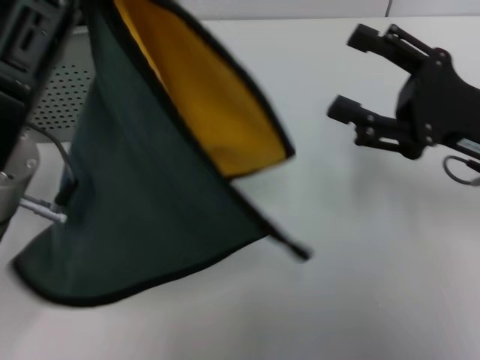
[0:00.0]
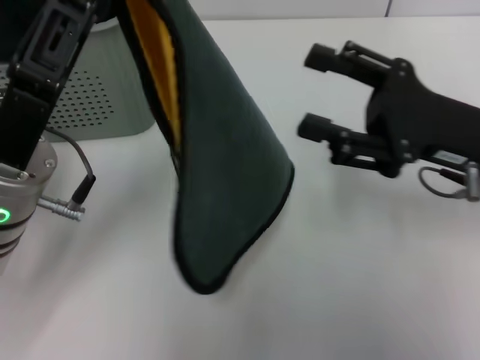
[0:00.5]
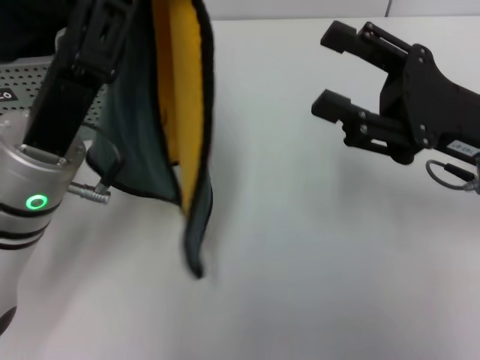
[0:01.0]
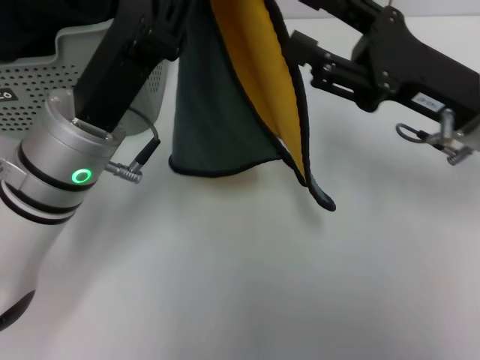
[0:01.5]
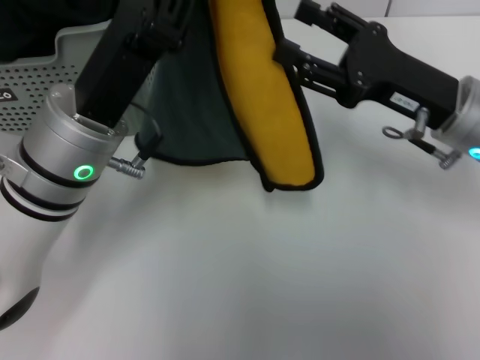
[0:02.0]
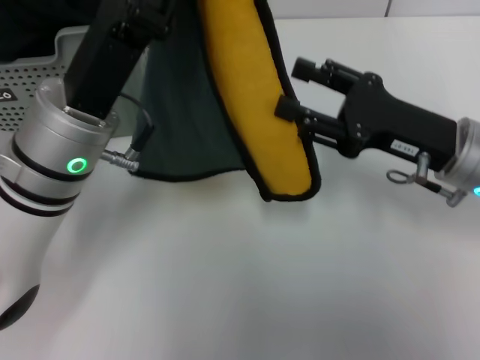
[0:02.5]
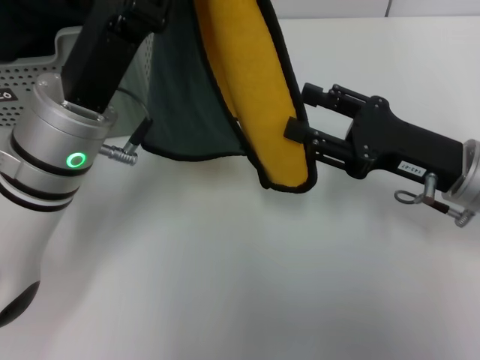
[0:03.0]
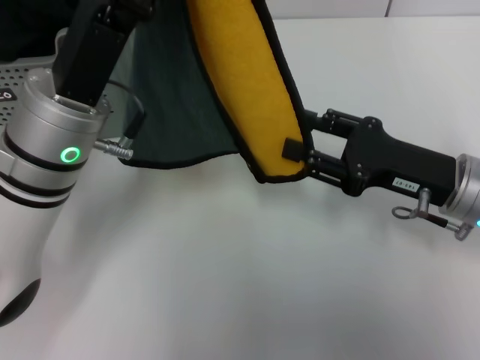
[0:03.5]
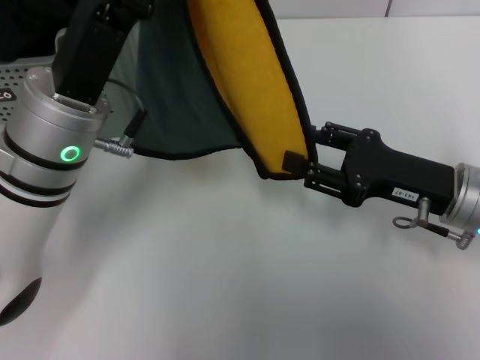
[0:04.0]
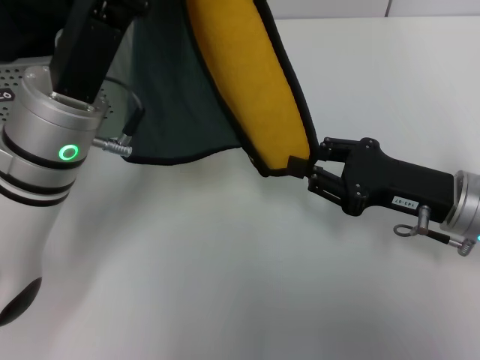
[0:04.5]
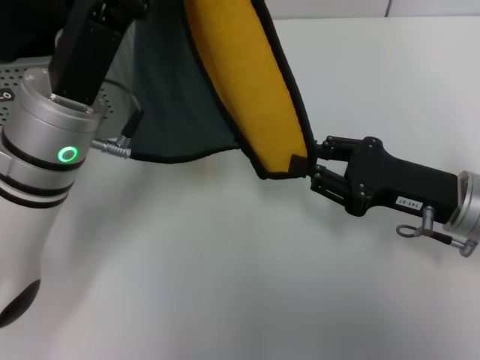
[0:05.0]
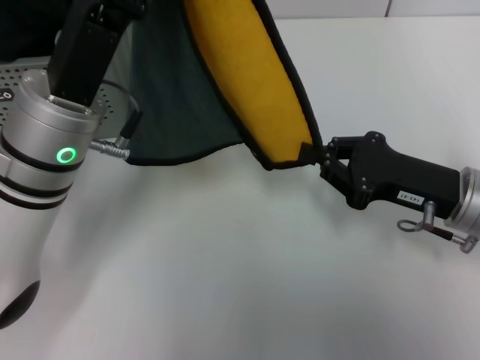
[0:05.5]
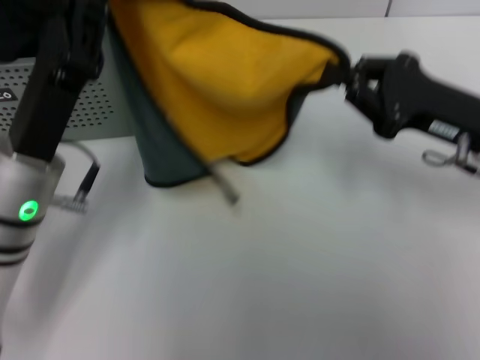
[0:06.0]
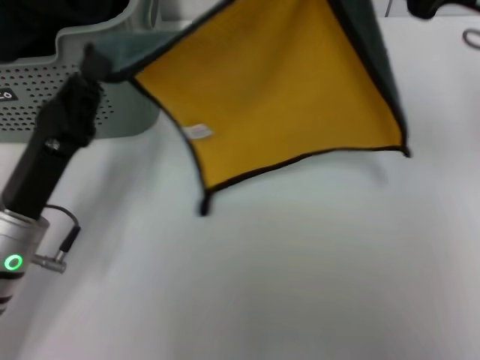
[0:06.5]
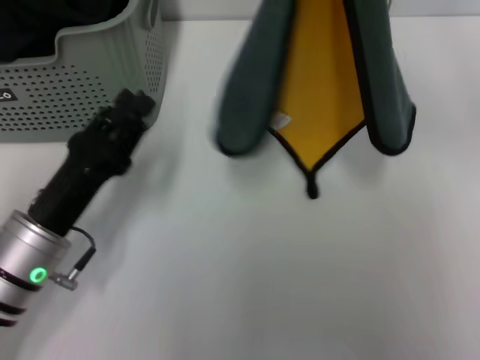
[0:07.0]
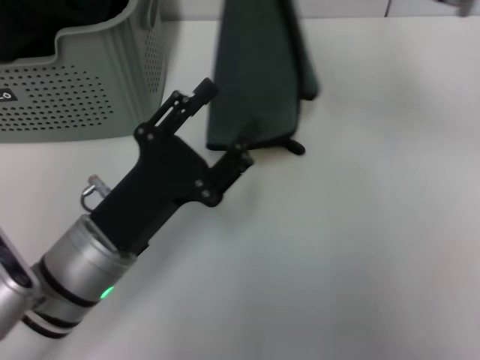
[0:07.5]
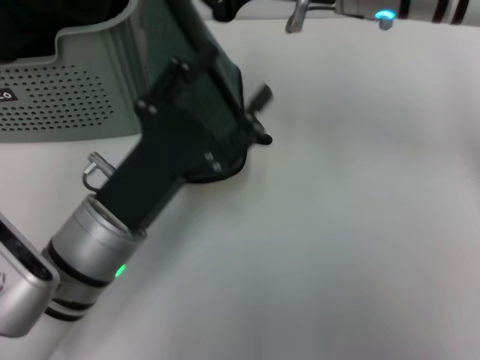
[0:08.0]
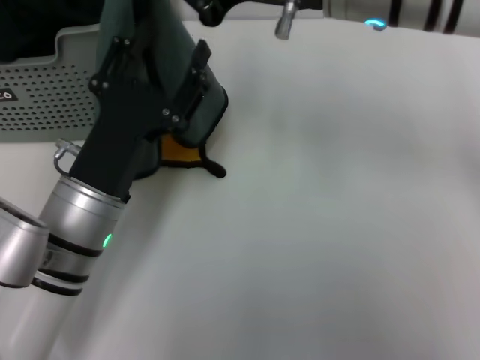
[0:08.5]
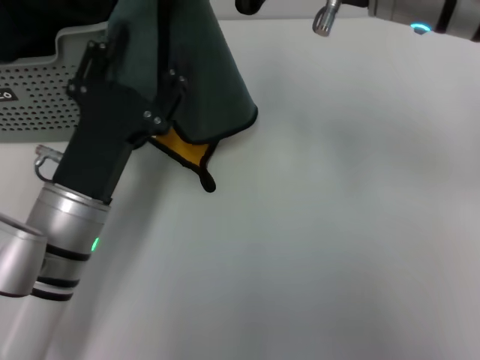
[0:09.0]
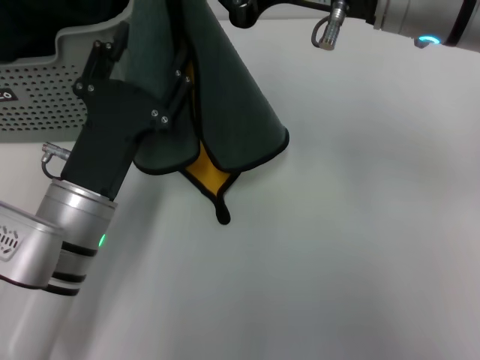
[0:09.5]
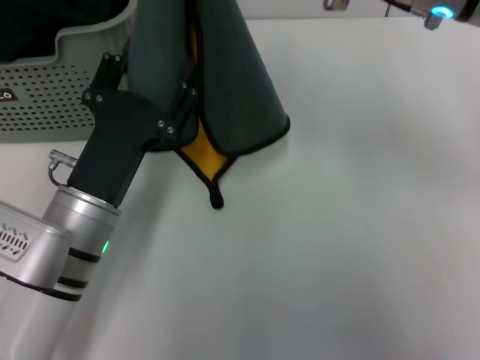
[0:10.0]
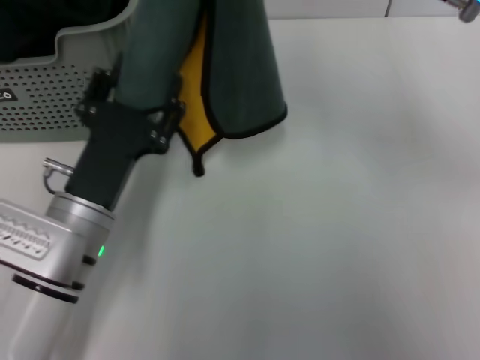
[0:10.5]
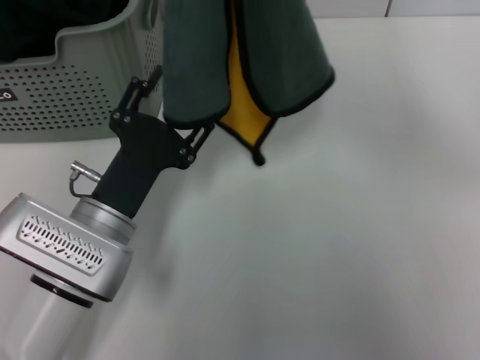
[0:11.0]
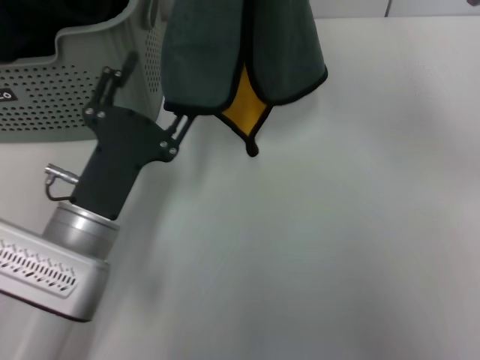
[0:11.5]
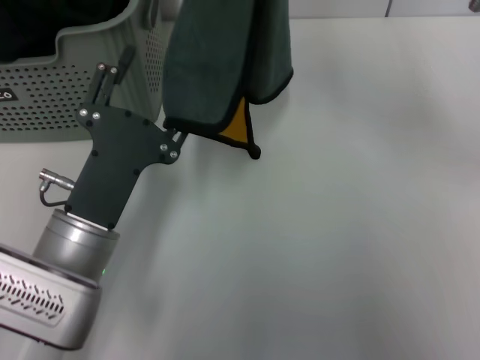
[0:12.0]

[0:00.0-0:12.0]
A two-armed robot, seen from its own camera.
Task of the whole recording: pick up the towel from the storage box and lay it flat on the table.
Step, 0:00.0 to 0:05.0: Spread the towel flat with the left gripper.
0:00.0 to 0:02.0: The left gripper shifts by some 5 cm. The right gripper moves some 5 cm.
0:02.0 to 0:04.0: The right gripper is displaced downward by roughly 5 cm.
0:04.0 to 0:06.0: The right gripper shifts some 5 cm upward, and closes its fingers, while the left gripper changes place by roughly 5 cm.
0:06.0 to 0:08.0: The right gripper goes approximately 20 cm to the left and upward; the left gripper ends up roughly 5 cm from where it was, and opens up.
0:08.0 to 0:10.0: The right gripper changes place by about 5 cm.

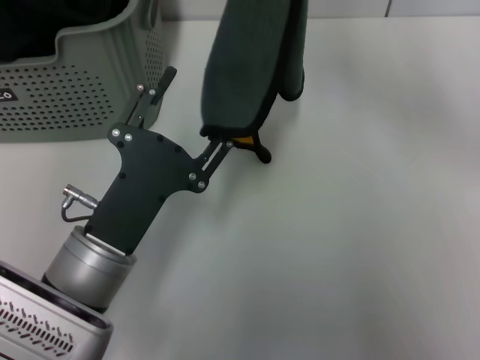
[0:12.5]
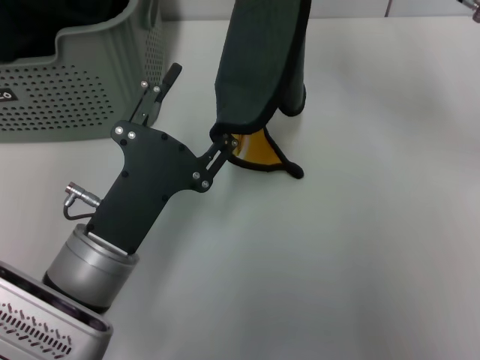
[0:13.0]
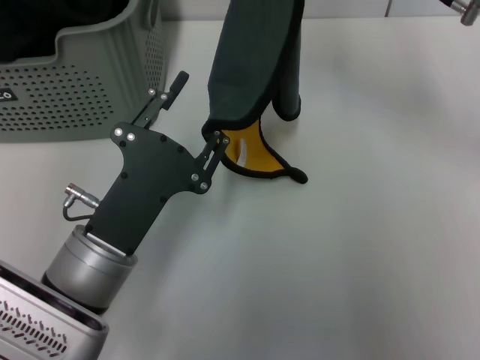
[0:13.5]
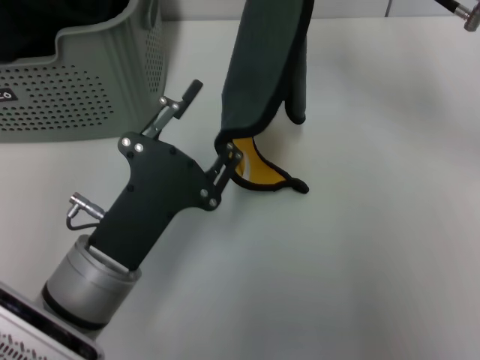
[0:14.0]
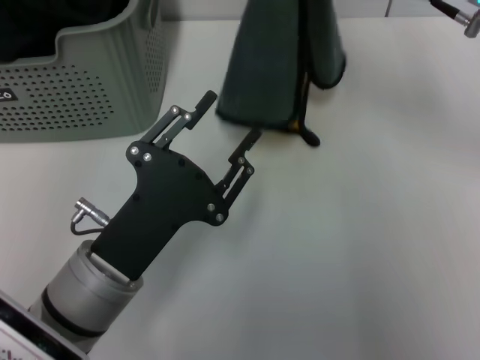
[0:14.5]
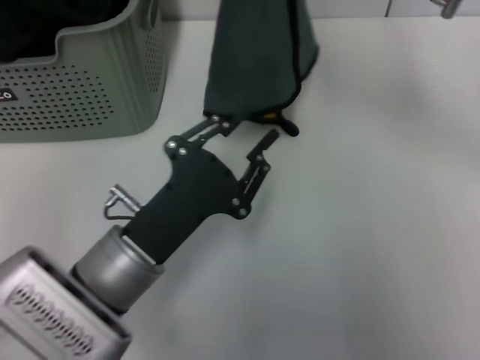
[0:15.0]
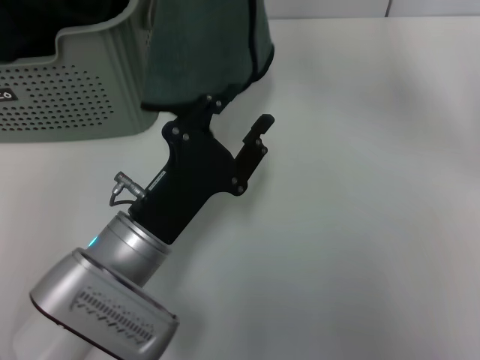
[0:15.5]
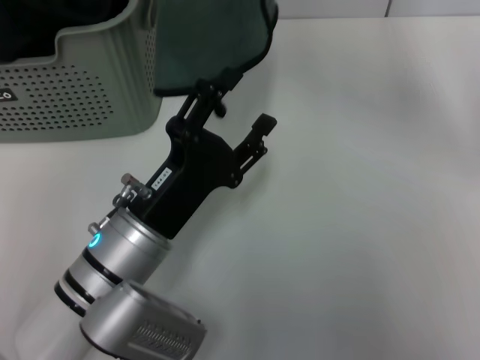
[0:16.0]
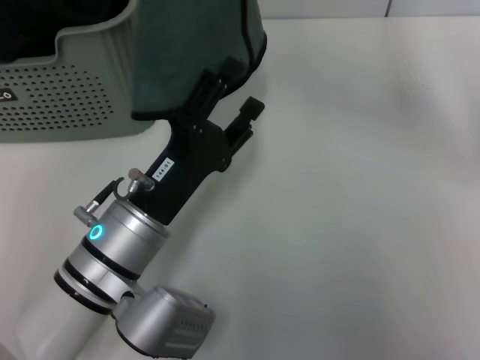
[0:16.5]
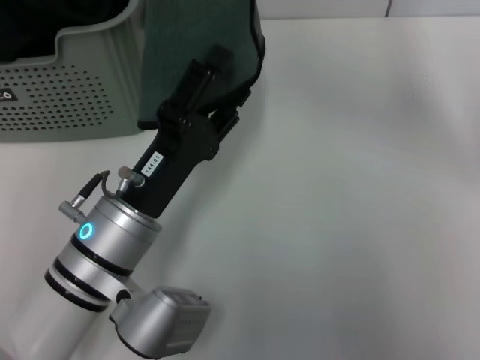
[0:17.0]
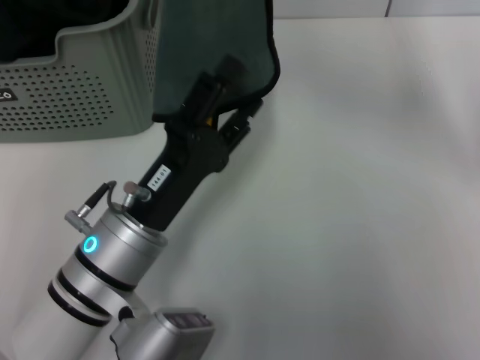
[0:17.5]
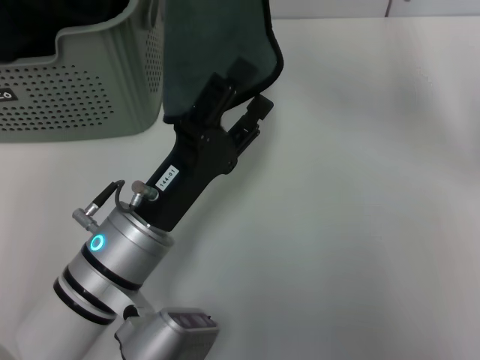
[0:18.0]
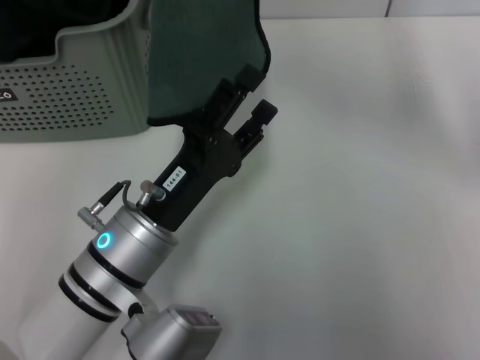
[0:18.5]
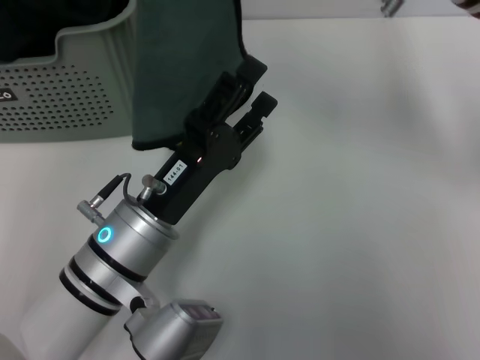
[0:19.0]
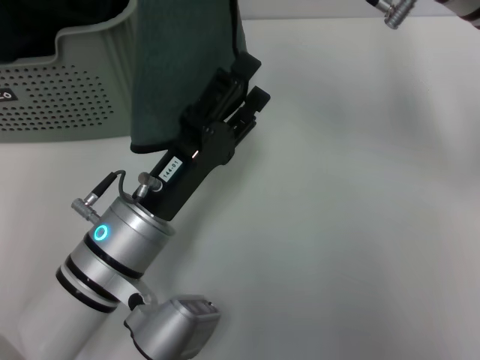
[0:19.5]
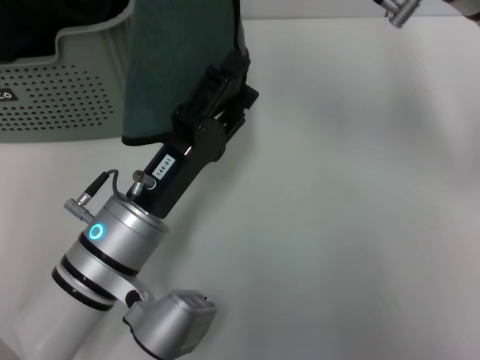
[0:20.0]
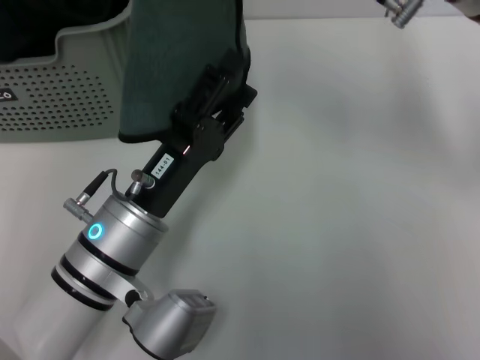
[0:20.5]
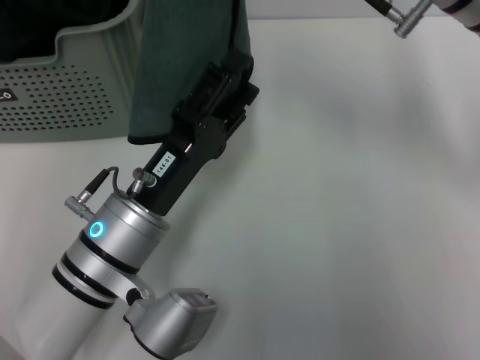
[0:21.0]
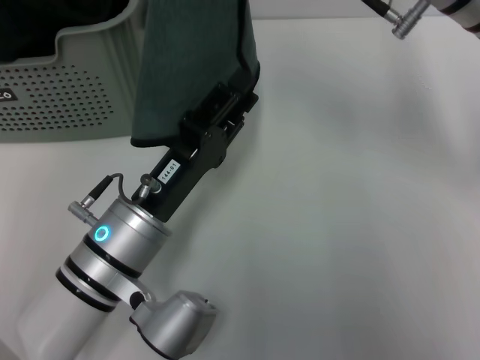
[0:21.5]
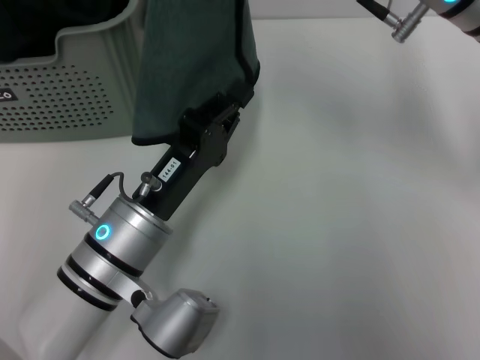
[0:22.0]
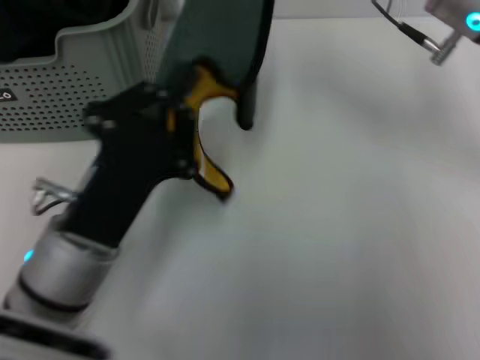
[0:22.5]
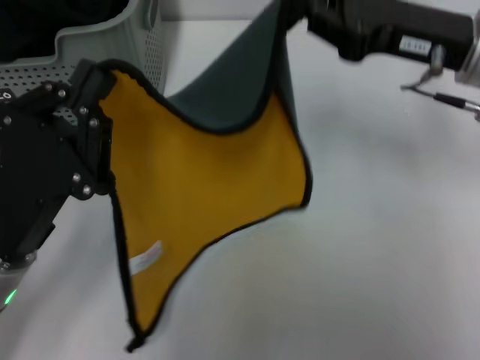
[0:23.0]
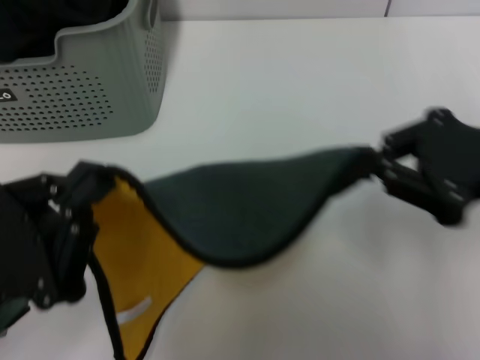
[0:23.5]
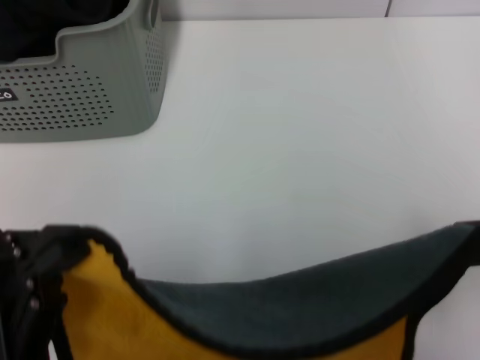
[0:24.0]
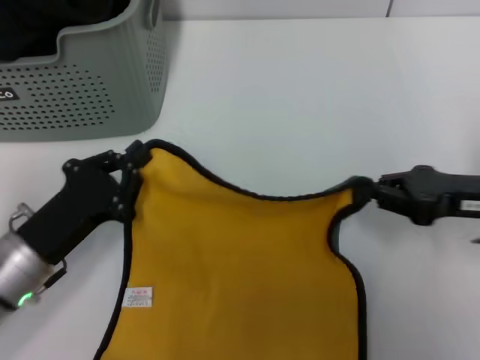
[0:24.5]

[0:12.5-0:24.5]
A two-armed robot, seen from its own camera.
Task of the whole recording: pick up the towel from the storage box and lay it flat on the table.
0:14.5 to 0:16.5: The right gripper moves upward and to the left, approximately 10 cm, while the left gripper opens.
0:16.5 to 0:20.5: The grippers stay close to where they were, moving slightly.
0:20.5 to 0:22.5: The right gripper shifts by approximately 5 cm, while the left gripper closes up.
0:22.5 to 0:24.5: The right gripper is displaced downward, to the right and backward by some 15 cm; the left gripper moves to the left, approximately 10 cm.

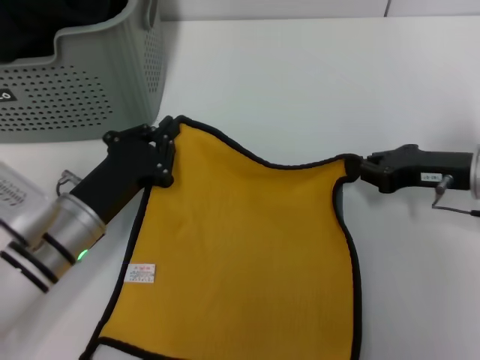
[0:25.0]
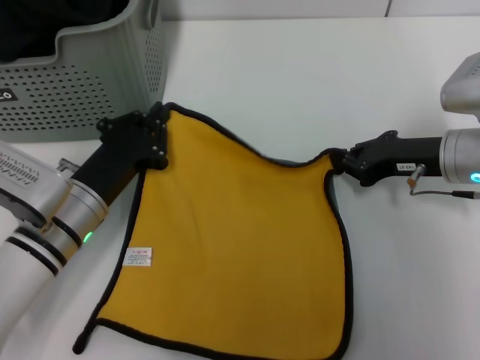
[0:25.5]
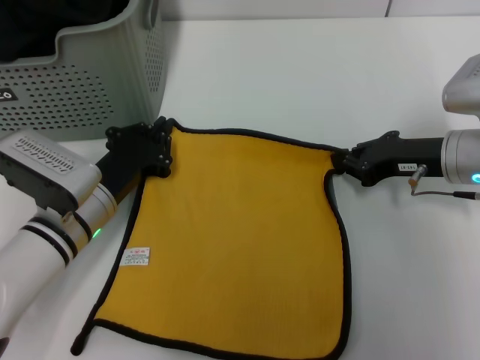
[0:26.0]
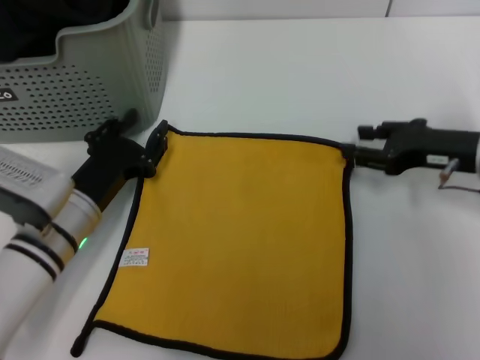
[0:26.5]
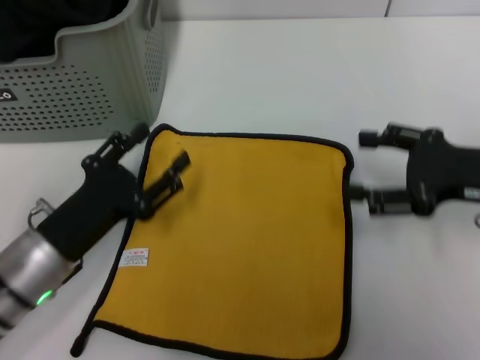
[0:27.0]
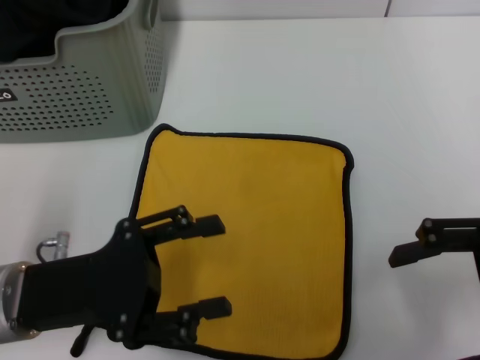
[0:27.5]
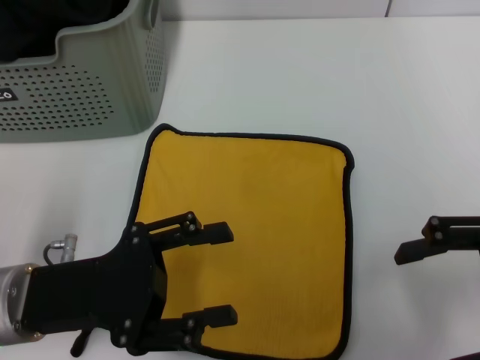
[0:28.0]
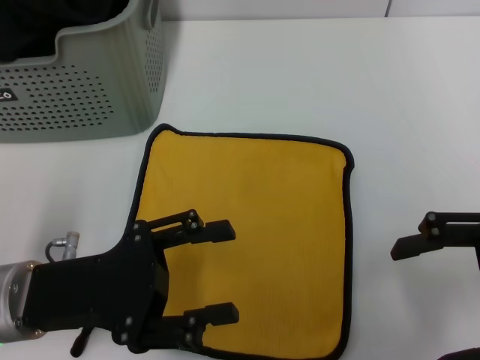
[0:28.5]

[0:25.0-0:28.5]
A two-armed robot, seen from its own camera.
Task of the whole recording: pick up the towel from the storage box and lay it flat on the table.
0:25.0 to 0:27.0: The left gripper opens, while the right gripper heads upward, covering roughly 5 cm, and opens its fingers.
0:27.0 to 0:28.5: The right gripper is displaced backward by about 5 cm, while the left gripper moves upward, approximately 5 cm.
